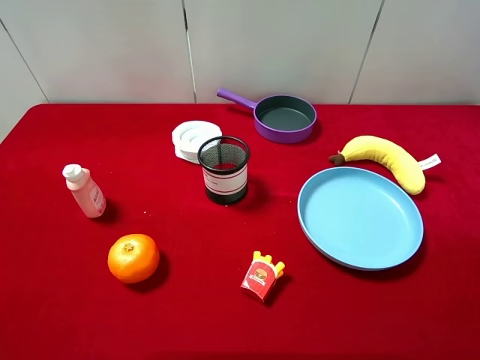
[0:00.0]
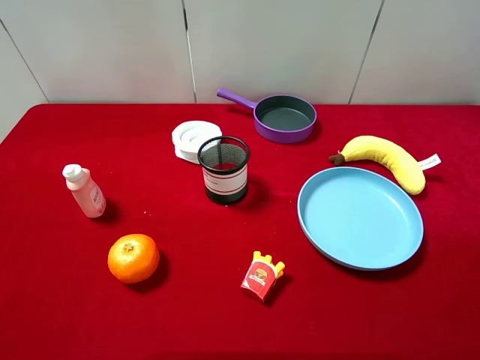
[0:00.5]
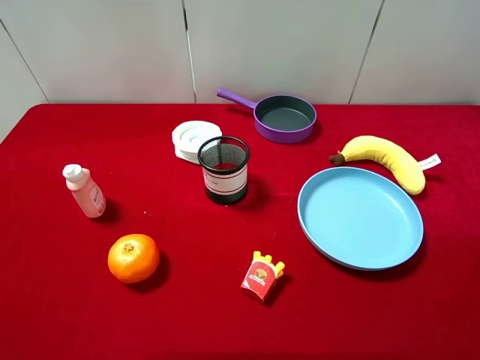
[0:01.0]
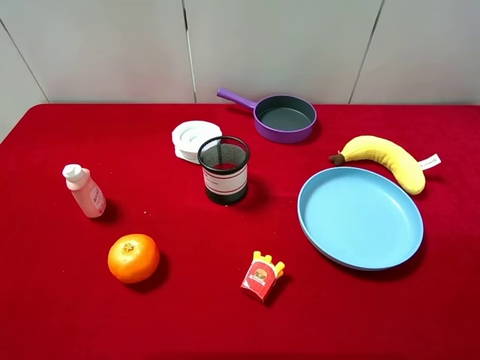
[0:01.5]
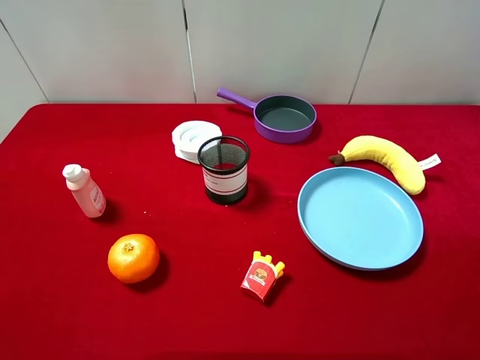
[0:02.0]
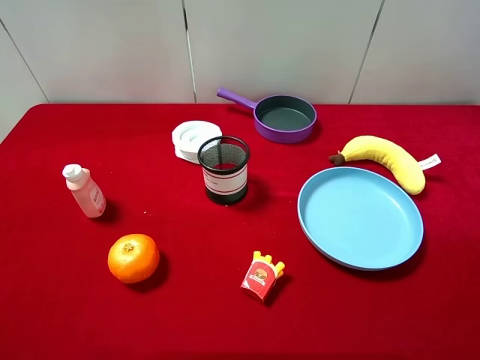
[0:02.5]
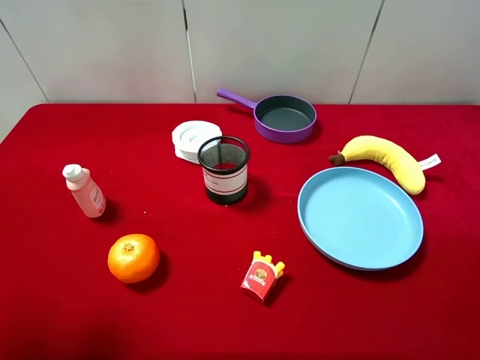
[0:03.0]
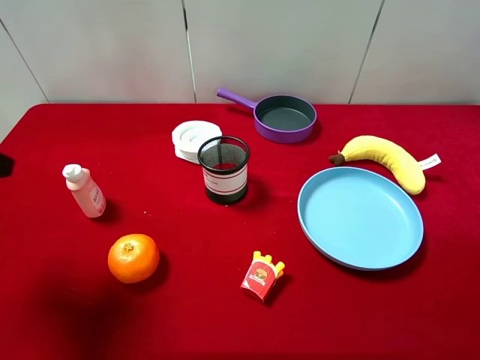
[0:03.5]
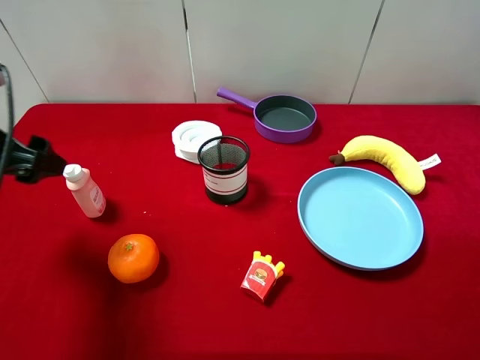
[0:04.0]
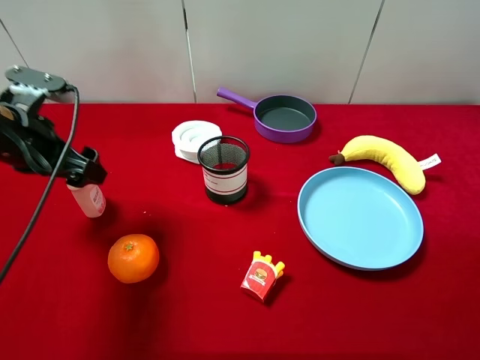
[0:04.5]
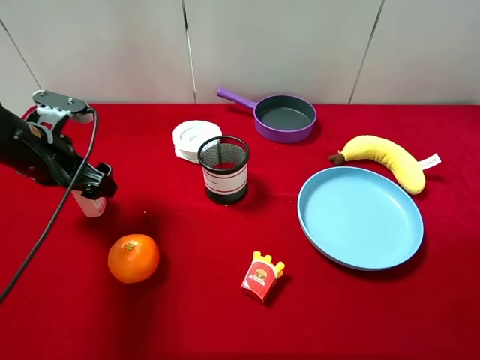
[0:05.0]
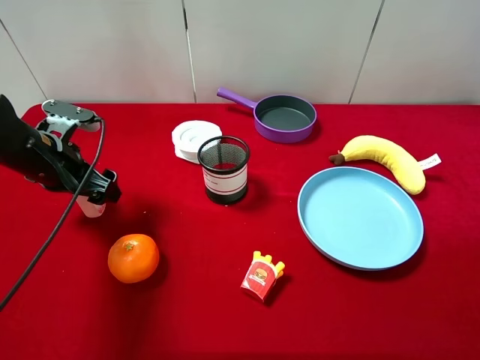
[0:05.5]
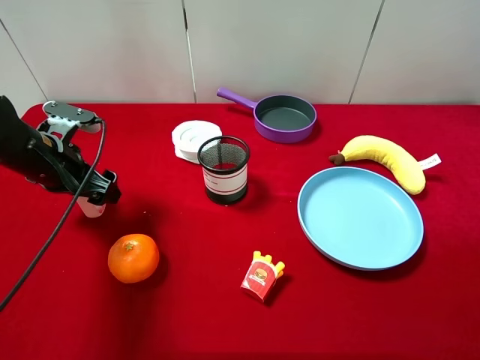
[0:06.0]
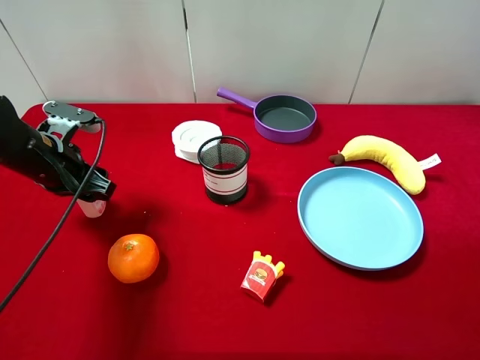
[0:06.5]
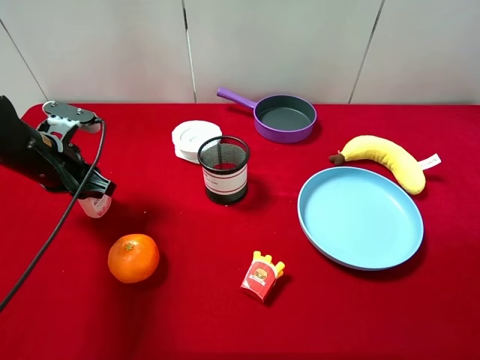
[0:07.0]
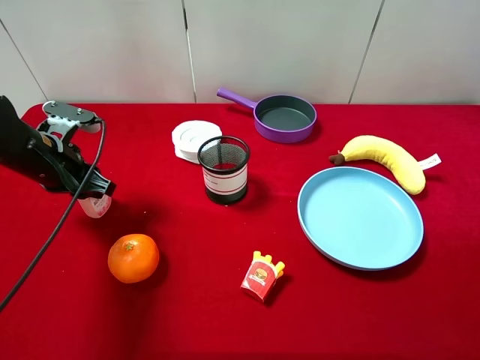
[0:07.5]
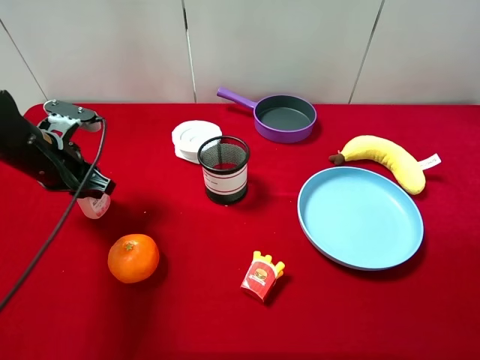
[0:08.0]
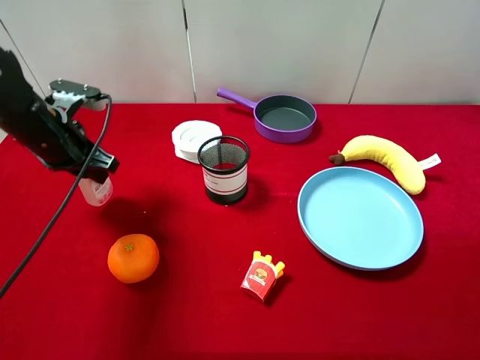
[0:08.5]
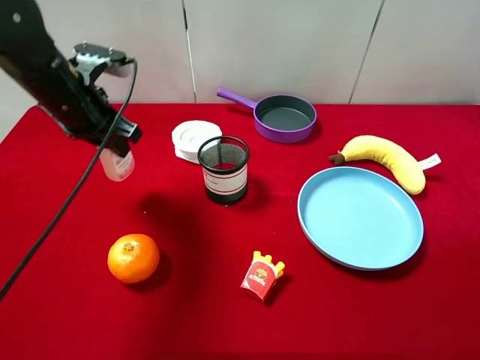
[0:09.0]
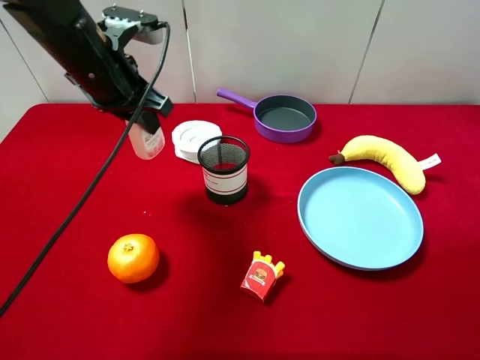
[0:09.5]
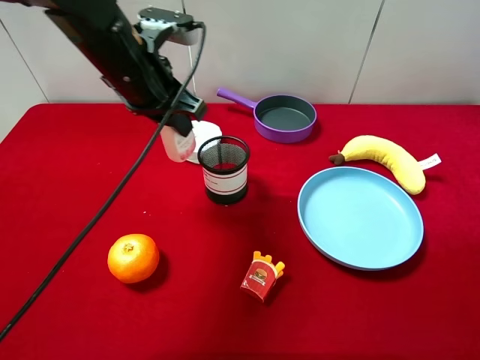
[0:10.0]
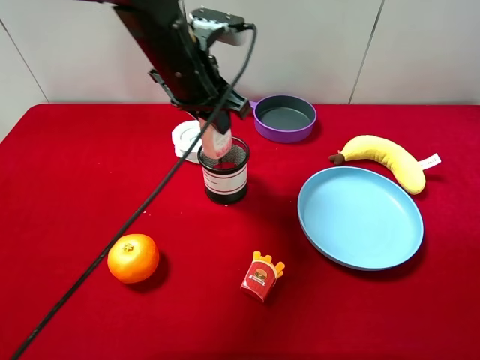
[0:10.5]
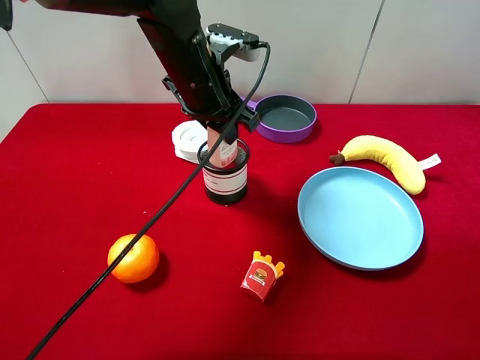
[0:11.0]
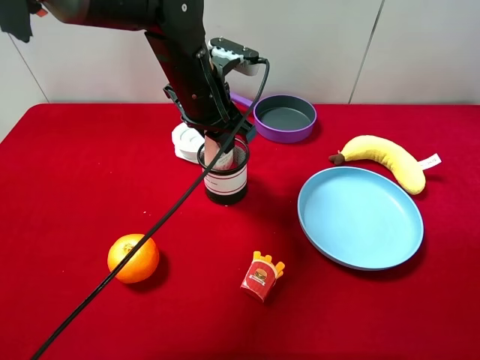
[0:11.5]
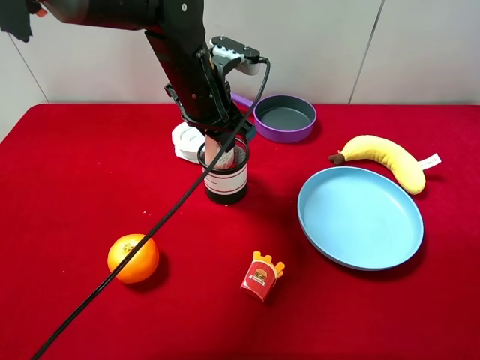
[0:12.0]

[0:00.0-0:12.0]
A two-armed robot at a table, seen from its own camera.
Task of the whole recording: pick up an item with a gripper and place it in a random container on the desktop.
0:02.0 to 0:04.0: The left gripper heads forward, covering approximately 20 cm.
0:04.0 to 0:06.0: The left gripper goes about 10 cm downward and forward.
0:06.0 to 0:08.0: The left gripper closes.
0:08.0 to 0:10.0: The left gripper shifts some 20 cm to the right and upward.
0:10.0 to 0:12.0: The left gripper shifts approximately 10 cm to the right.

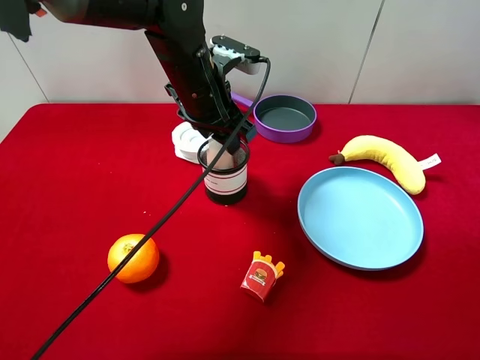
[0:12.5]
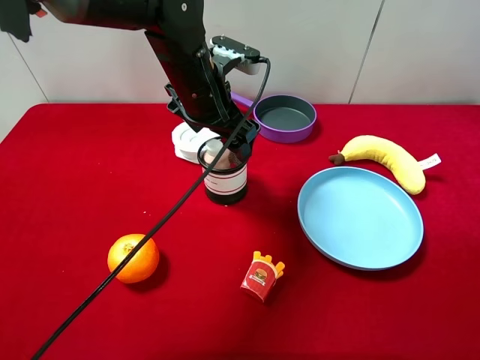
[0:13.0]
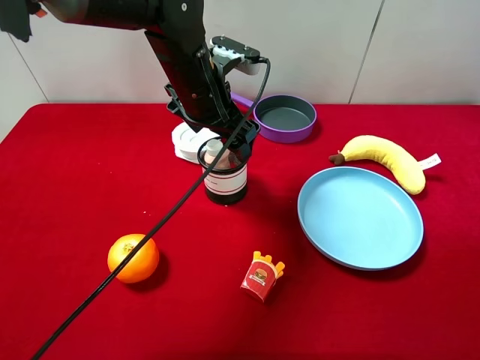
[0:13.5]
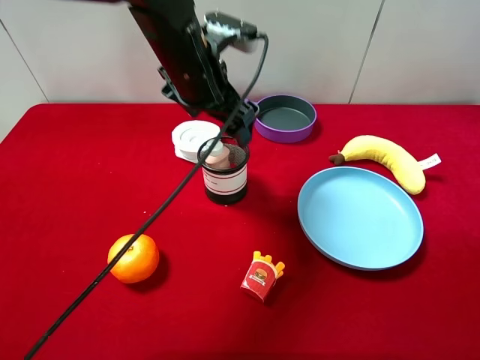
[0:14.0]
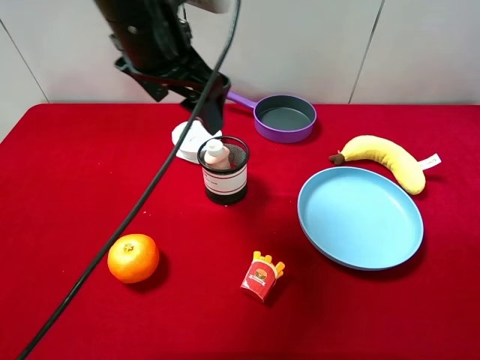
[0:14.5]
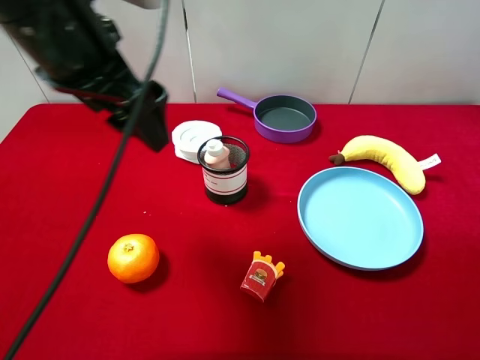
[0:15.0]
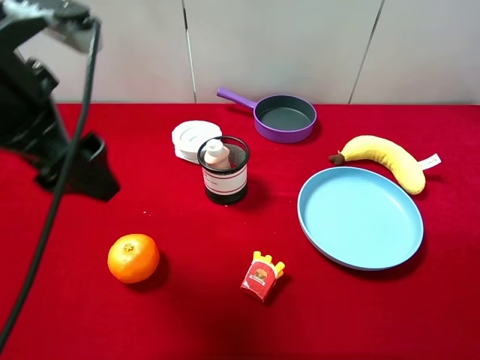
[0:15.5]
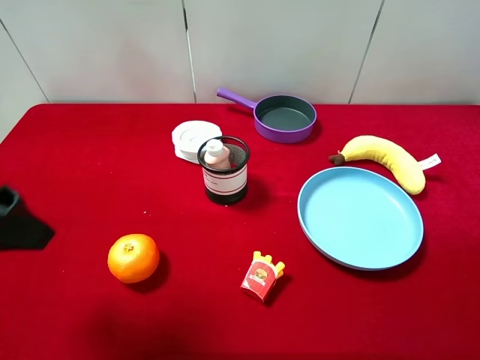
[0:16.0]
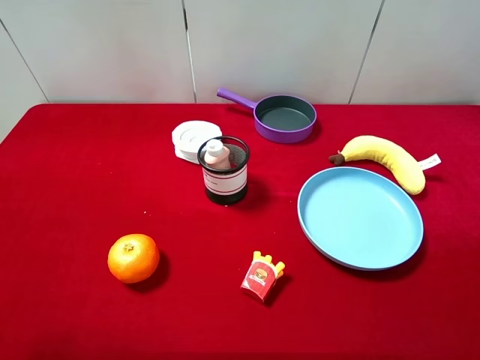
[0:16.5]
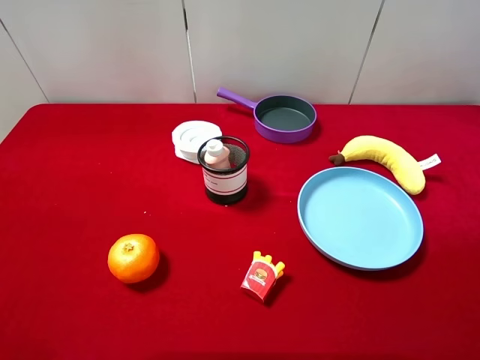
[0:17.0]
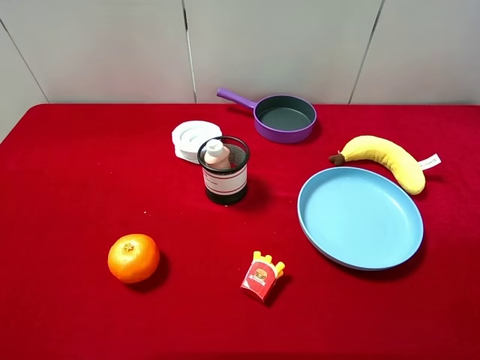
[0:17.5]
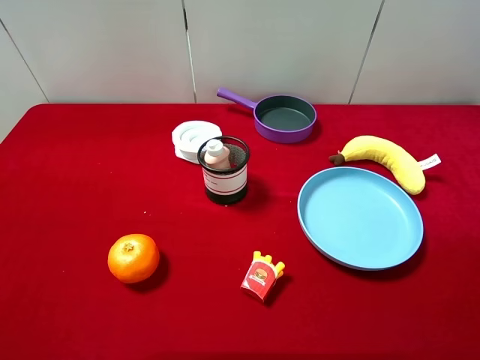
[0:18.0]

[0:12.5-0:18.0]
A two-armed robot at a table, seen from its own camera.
Task of the whole recording: pick up an item with a gripper and place it in a random container on the desktop.
0:12.5 to 0:14.5: The left gripper travels upward by about 10 cm, and opens.
0:14.5 to 0:16.0: The left gripper moves backward and to the left, roughly 20 cm.
0:16.0 to 0:18.0: The left gripper goes roughly 15 cm backward and to the left.

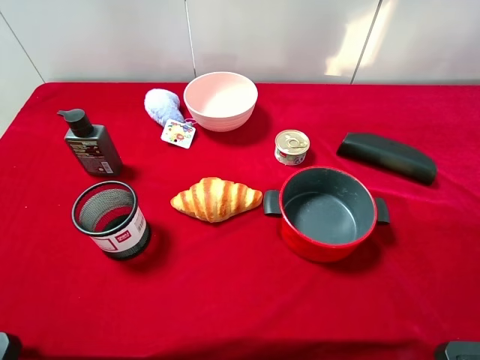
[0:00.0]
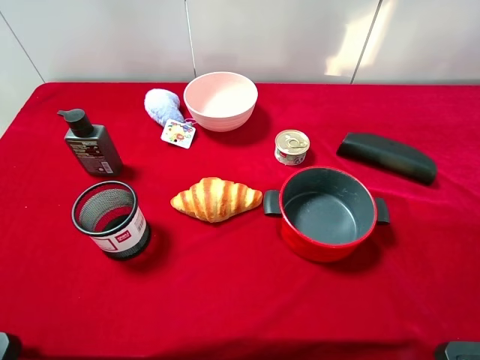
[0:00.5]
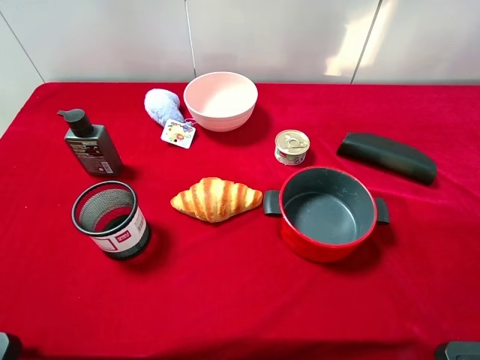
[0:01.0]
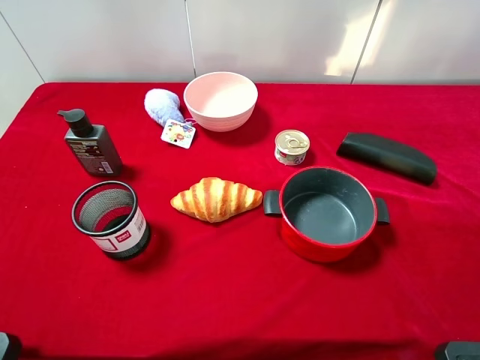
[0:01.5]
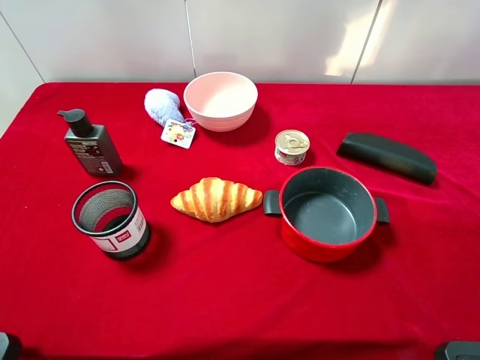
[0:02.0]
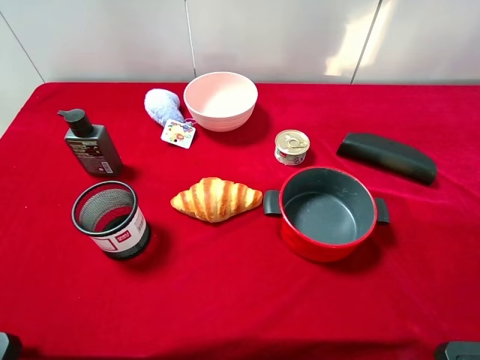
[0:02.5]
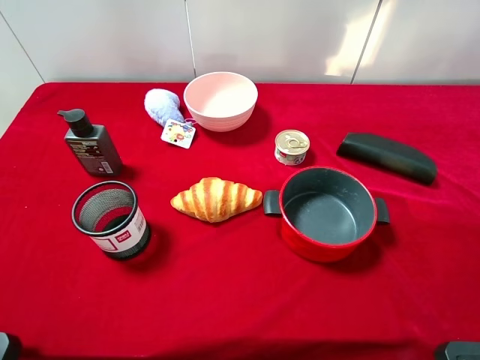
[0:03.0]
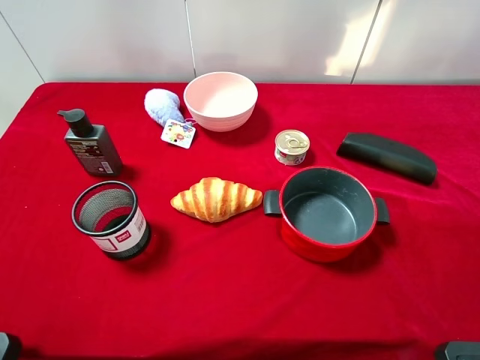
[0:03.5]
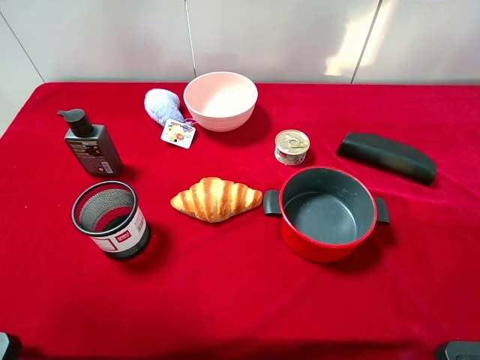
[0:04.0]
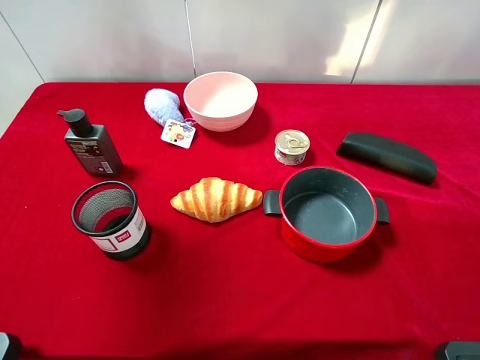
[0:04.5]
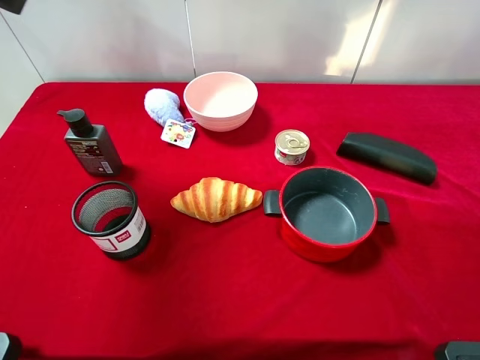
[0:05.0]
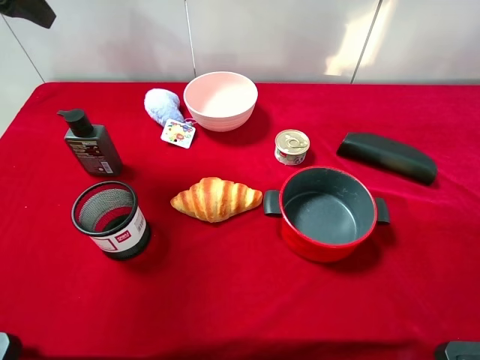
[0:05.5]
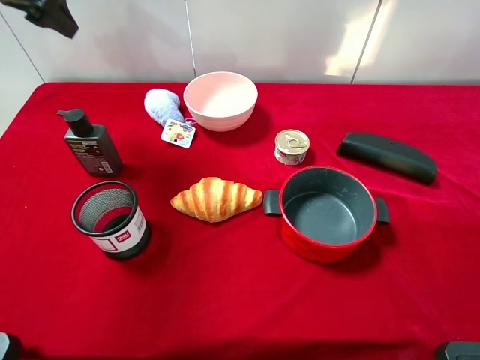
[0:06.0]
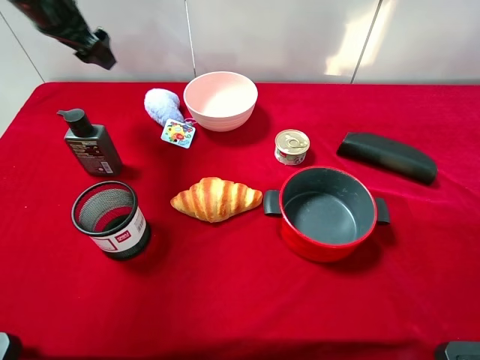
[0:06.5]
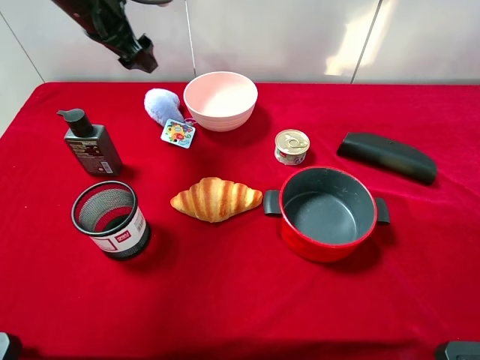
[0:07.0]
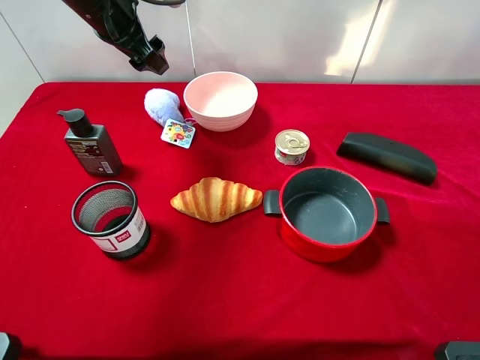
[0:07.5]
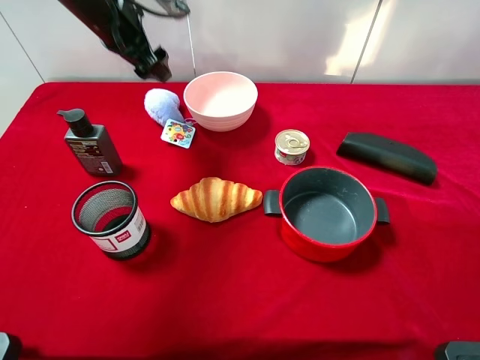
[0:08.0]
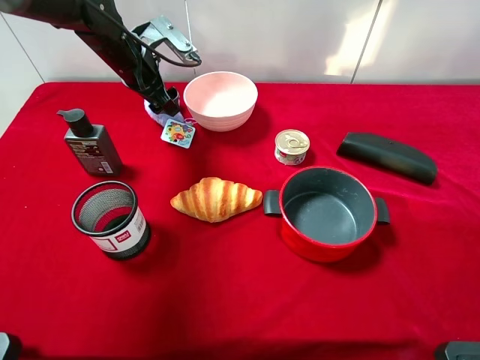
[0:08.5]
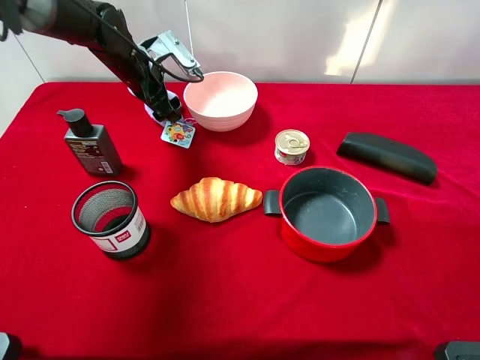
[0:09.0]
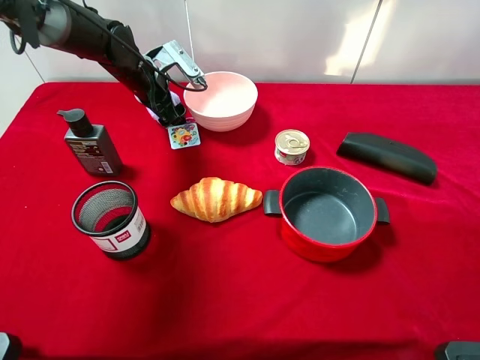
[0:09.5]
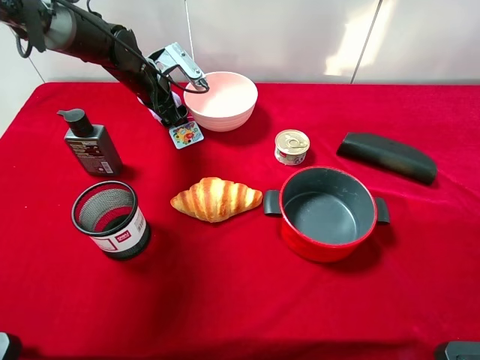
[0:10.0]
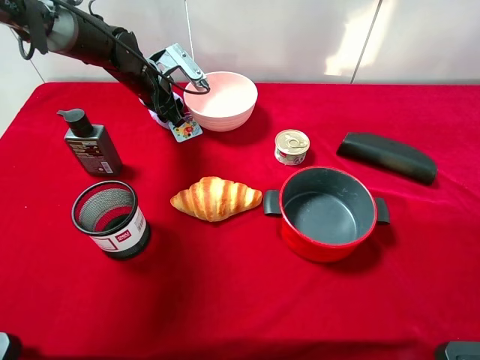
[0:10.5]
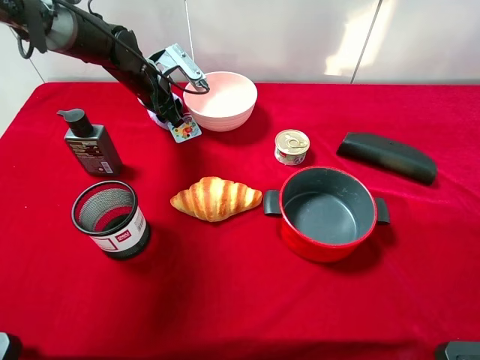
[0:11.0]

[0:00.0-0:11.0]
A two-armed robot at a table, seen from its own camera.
Task of the whole recording: pick up an item with a gripper and place it in a random container on the desktop.
0:00.0 to 0:02.0: Neither gripper changes place.
0:03.5 to 0:05.5: The left gripper is displaced forward by some 30 cm.
0:05.5 to 0:07.5: The left gripper is displaced to the right, downward and forward by approximately 15 cm.
0:07.5 to 0:09.0: The left gripper is displaced downward by about 10 cm.
0:09.0 to 0:11.0: The left gripper closes.
